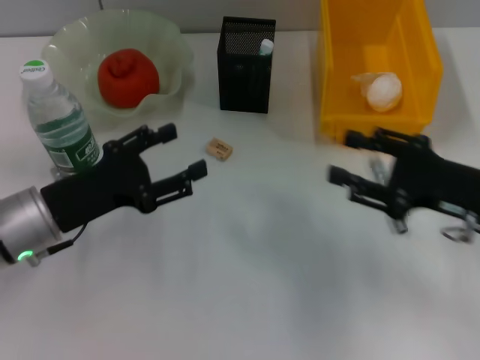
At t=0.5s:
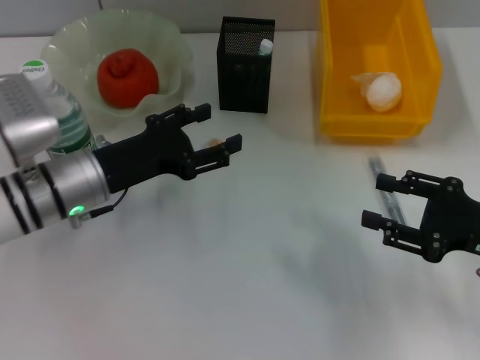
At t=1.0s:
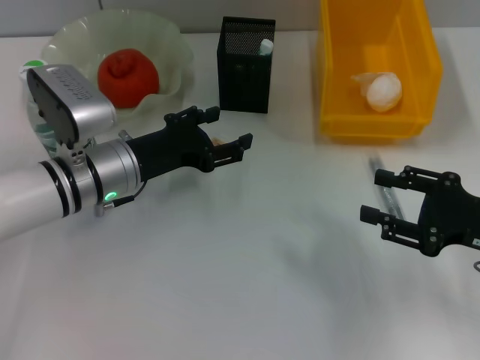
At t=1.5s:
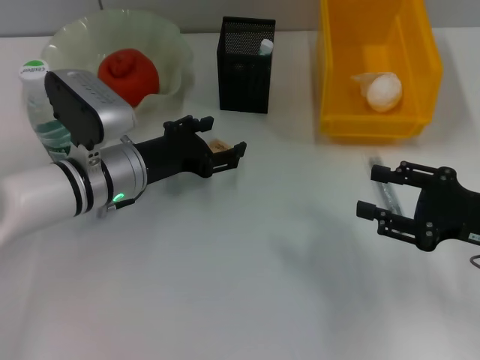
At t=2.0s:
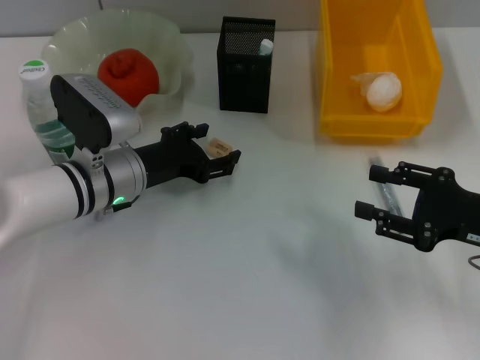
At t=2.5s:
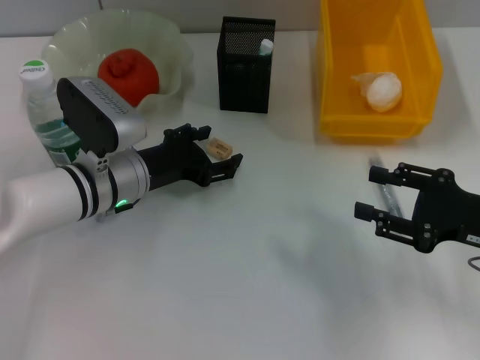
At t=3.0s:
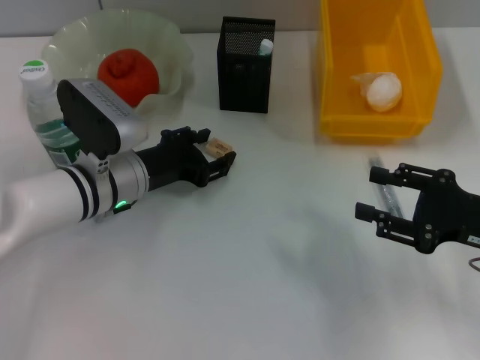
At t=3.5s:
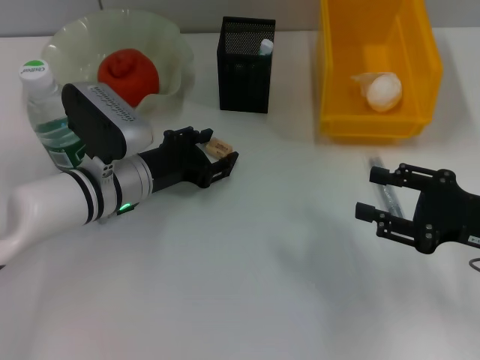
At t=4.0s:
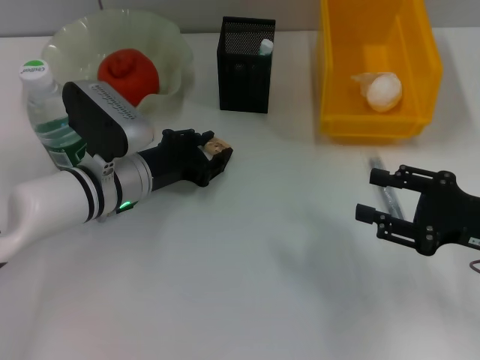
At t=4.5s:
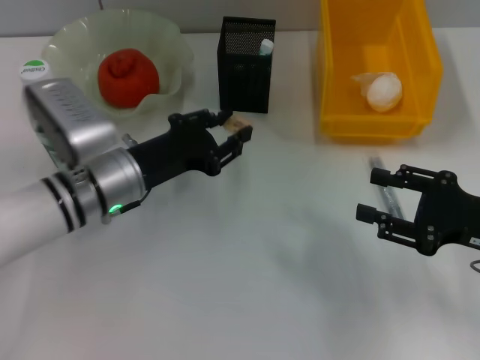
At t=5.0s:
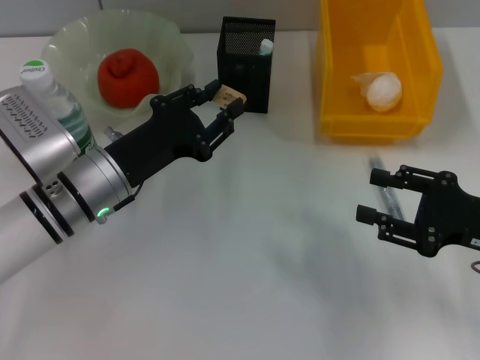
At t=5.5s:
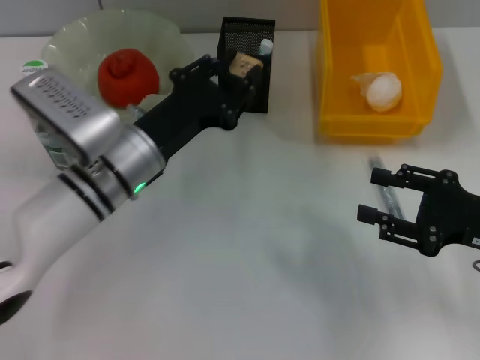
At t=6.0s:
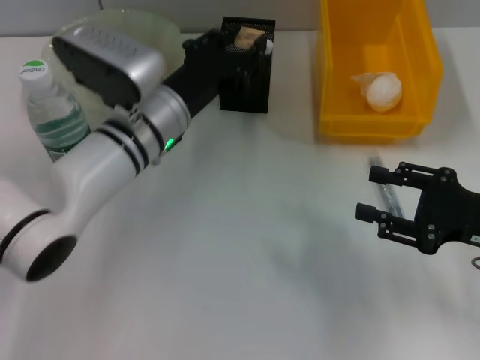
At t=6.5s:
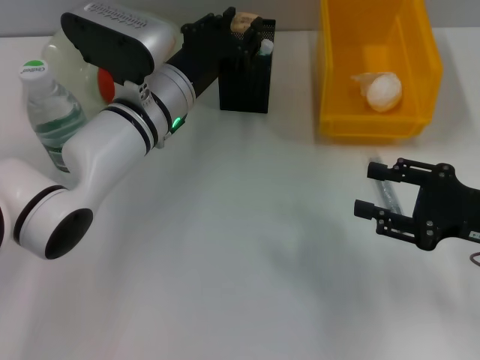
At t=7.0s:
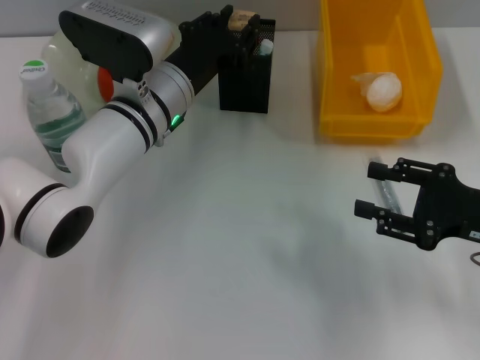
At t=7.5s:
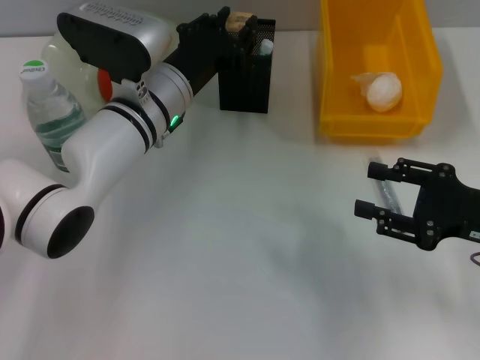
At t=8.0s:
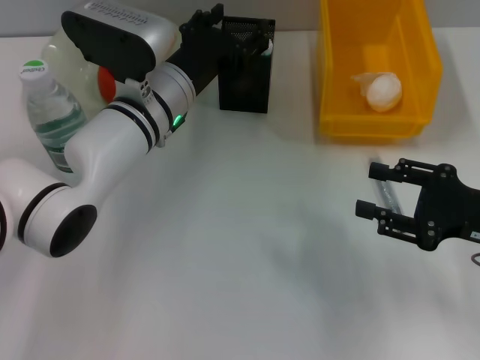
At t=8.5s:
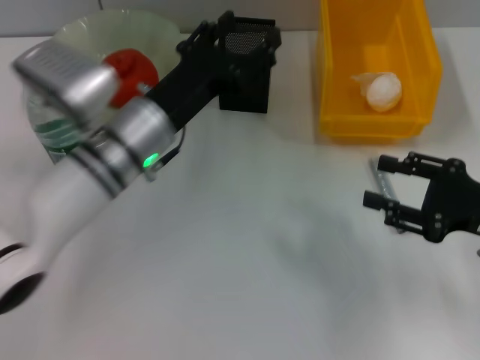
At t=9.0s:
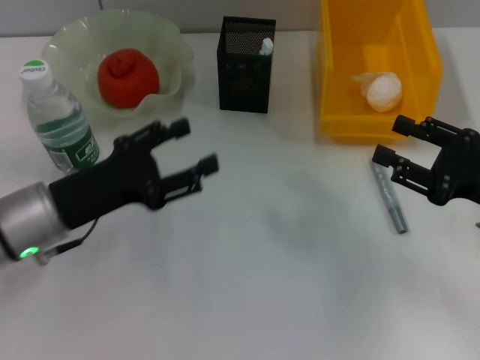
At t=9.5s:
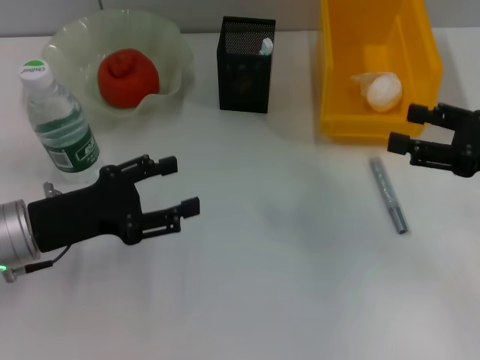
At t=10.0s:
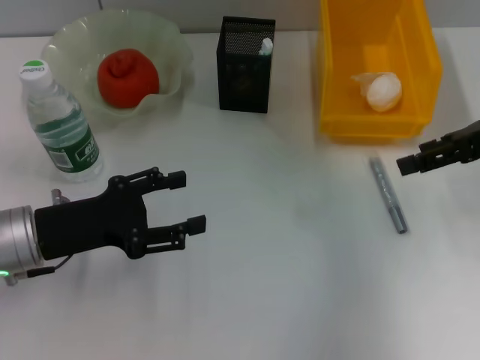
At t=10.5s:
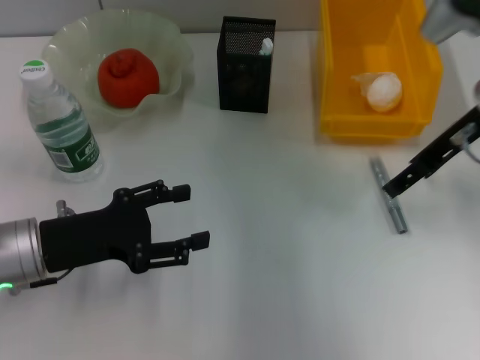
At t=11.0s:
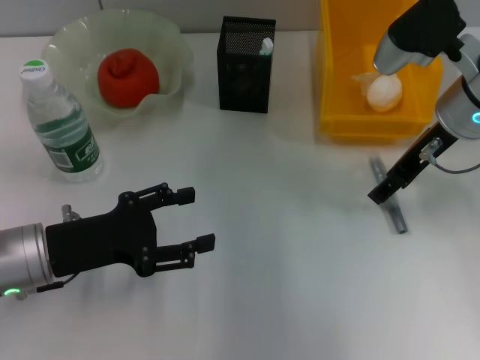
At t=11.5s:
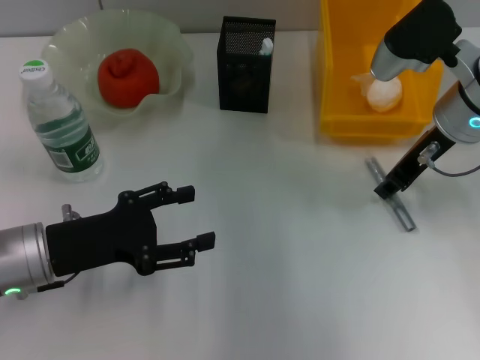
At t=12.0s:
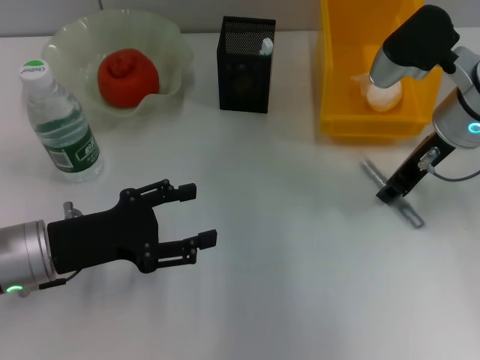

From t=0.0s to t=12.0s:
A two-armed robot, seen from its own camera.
Step, from t=0.0s to t=4.0s: Grab the eraser with the left hand.
Step, from t=4.5s to t=8.0s: Place the eraser into the pen holder with the left hand.
From t=0.0s to t=2.0s: The left gripper is displaced forward and to the right by approximately 10 cm.
From t=2.0s to t=4.0s: The left gripper closes its fingers.
From t=4.0s to t=6.0s: The left gripper heads to the right, covering roughly 5 cm.
From t=6.0s to t=8.0s: The grippers stay close to where they were, moving slightly.
From t=8.0s to t=10.0s: The left gripper goes some 20 cm to the left and backward; the right gripper shifts about 15 cm upward and forward.
From t=10.0s to t=12.0s: The right gripper travels to the left by some 10 cm, and closes.

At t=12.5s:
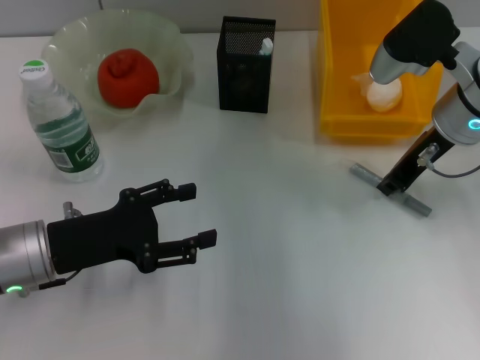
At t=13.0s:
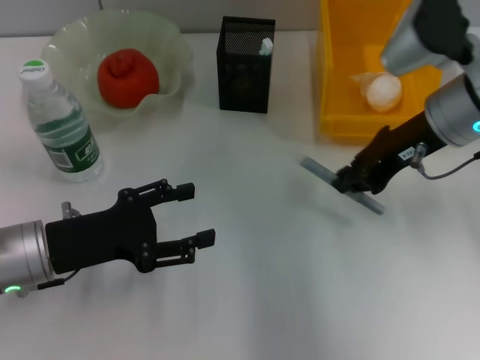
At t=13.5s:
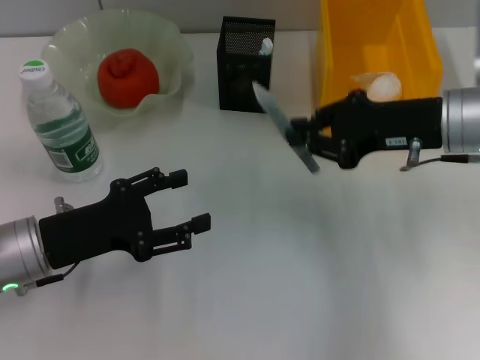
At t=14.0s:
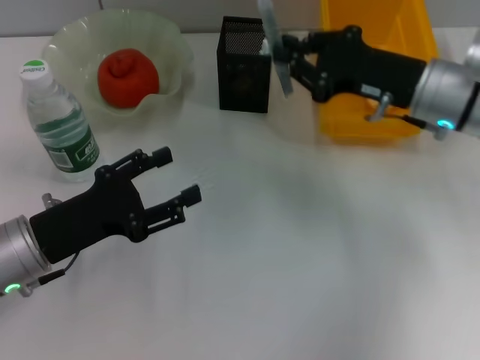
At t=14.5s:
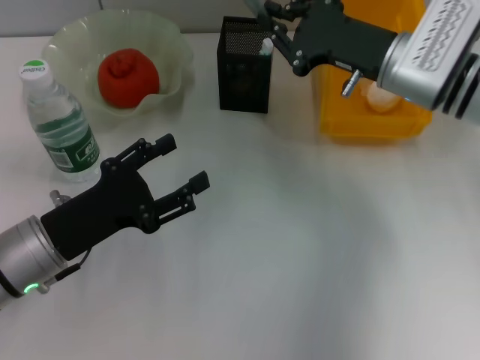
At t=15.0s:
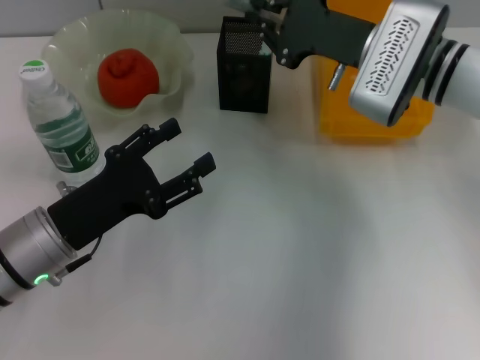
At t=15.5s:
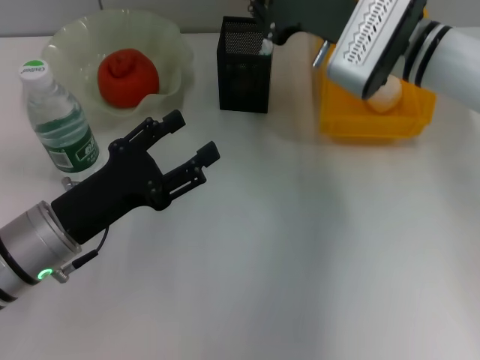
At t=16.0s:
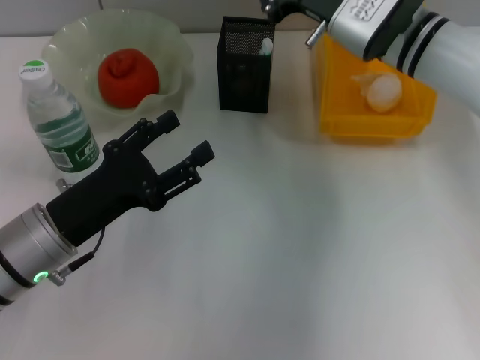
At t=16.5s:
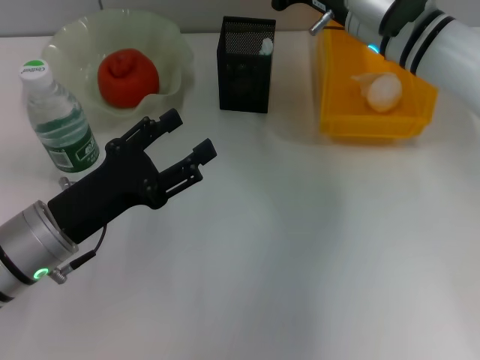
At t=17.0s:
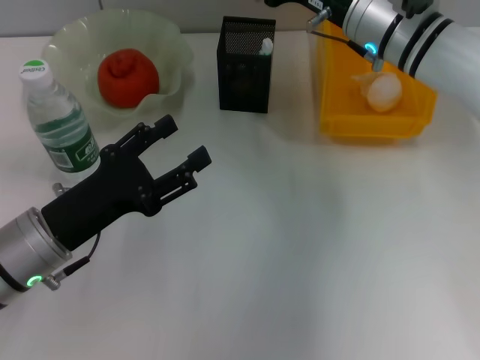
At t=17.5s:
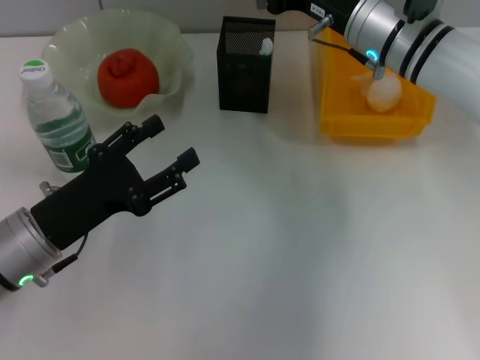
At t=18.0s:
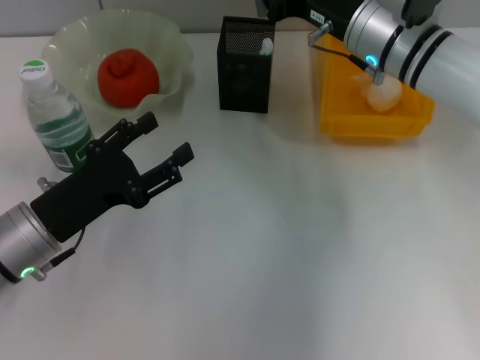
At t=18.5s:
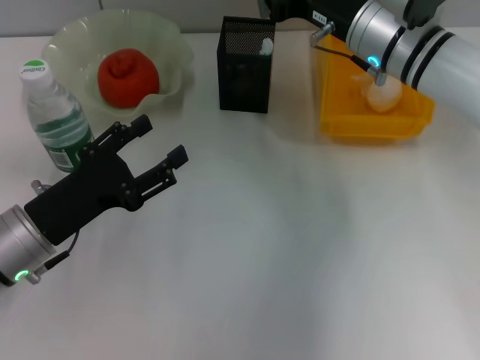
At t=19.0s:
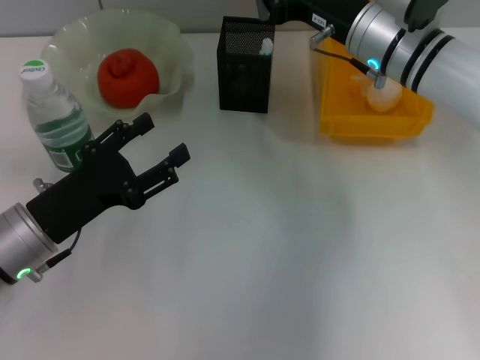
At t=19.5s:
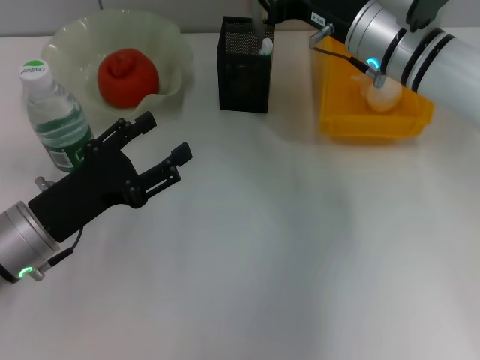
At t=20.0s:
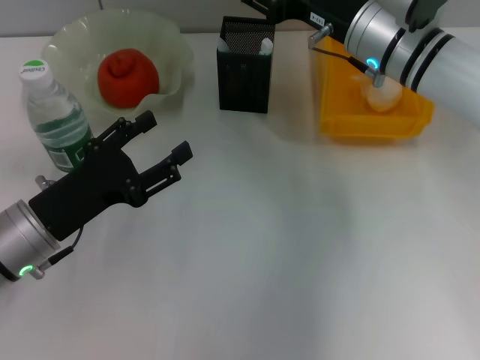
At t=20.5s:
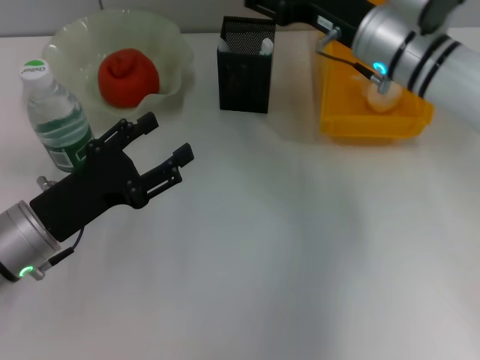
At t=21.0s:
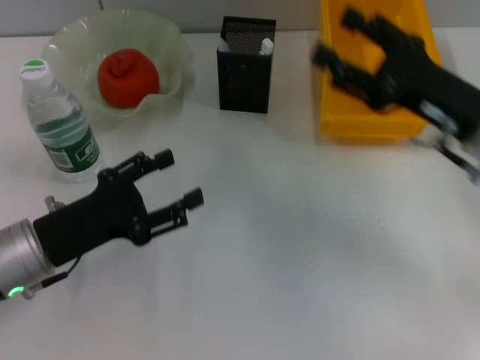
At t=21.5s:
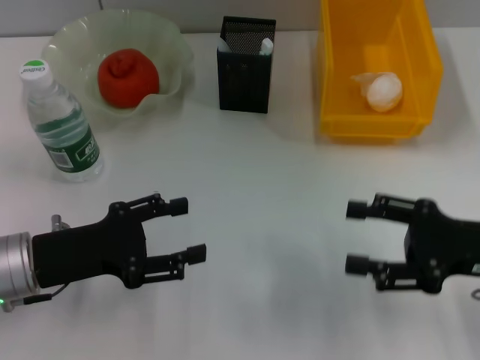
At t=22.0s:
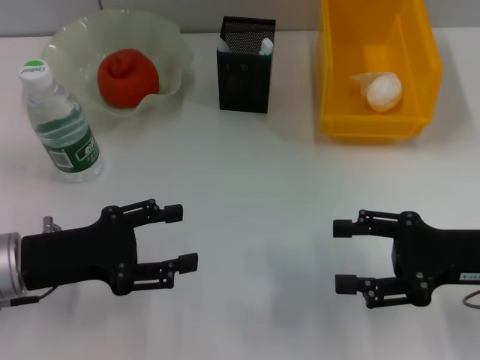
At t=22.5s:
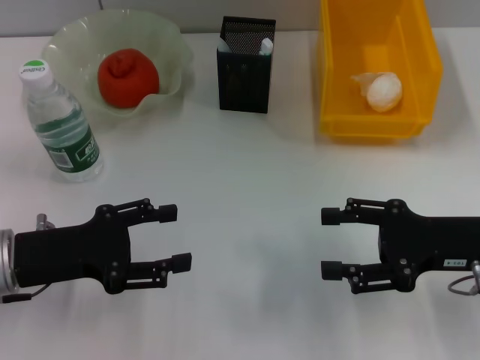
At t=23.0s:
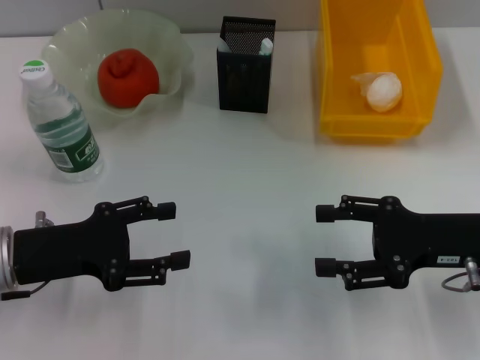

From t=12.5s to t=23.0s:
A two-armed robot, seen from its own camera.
Step, from t=13.0s to t=20.5s: Place the gray glue into the pen holder with the right hand.
From t=14.5s to t=16.5s: The right gripper ends up some 5 cm from where it was.
From t=16.5s to t=19.0s: The grippers make only small movements.
From t=19.0s to t=21.0s: The right gripper goes roughly 15 cm backward and to the right, and opens up.
From t=21.0s to t=23.0s: The right gripper ends up roughly 5 cm from where it was.

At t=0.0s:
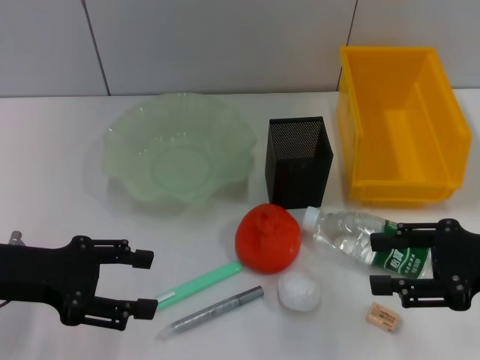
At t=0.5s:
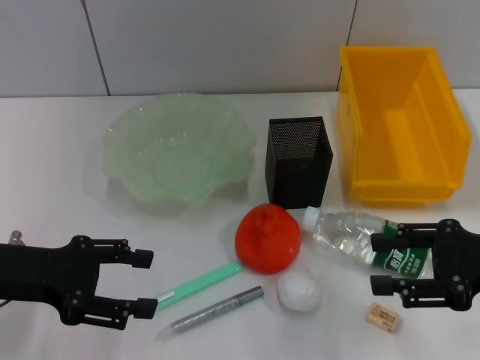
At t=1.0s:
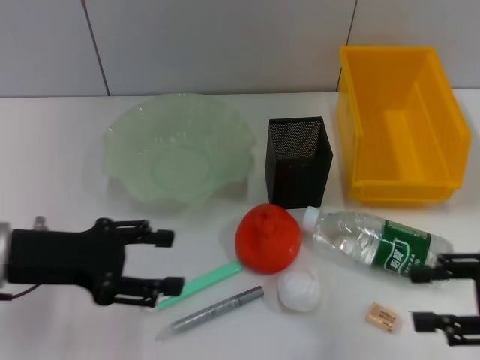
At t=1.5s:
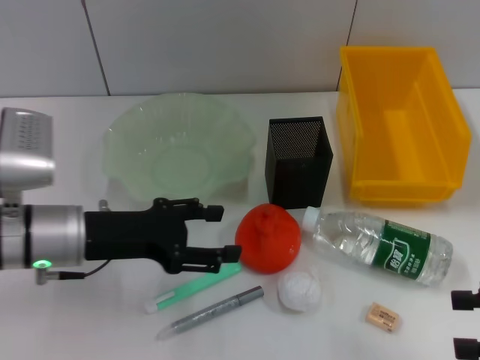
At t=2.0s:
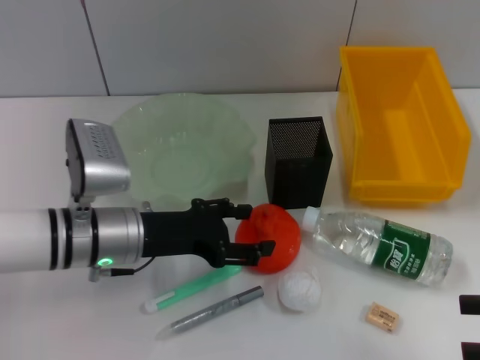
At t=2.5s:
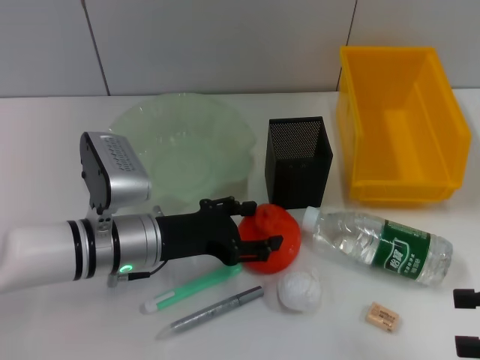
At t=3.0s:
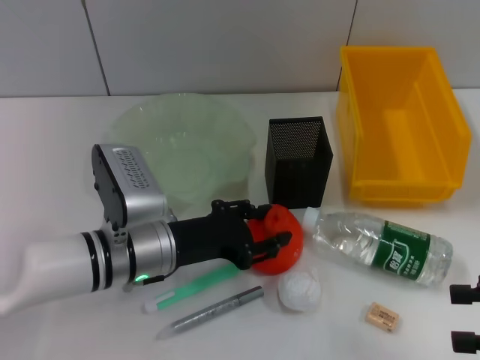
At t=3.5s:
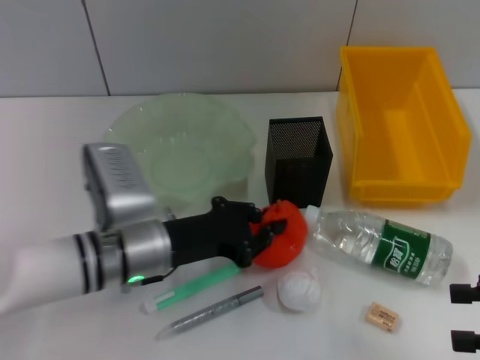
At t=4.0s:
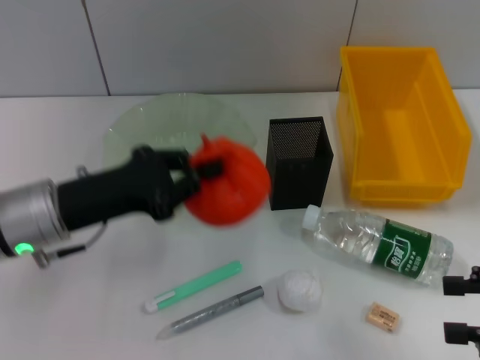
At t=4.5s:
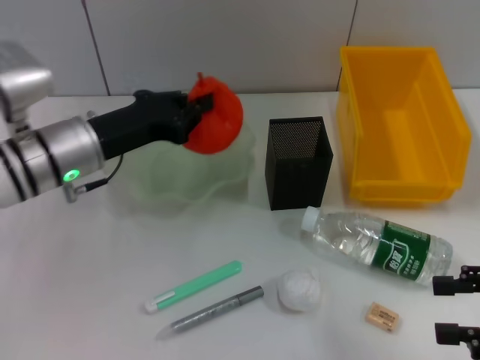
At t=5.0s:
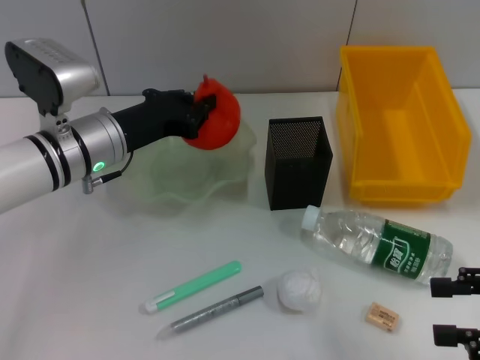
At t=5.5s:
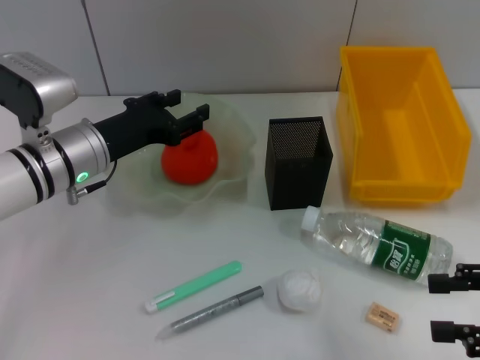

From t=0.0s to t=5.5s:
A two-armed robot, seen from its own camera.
Step, from t=0.0s to t=3.0s: Grab the orange with the left hand.
Step, from t=3.5s to t=5.0s: Place the orange into the fruit bowl with the left hand.
From t=0.0s to t=2.0s: The left gripper shifts about 15 cm to the right and downward. Meanwhile the right gripper is displaced backward and to the right by about 10 cm.
From t=2.0s to t=3.5s: The left gripper closes its fingers.
From t=3.5s to t=5.5s: The left gripper travels forward and to the left by some 10 cm.
